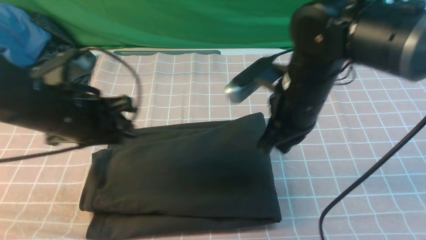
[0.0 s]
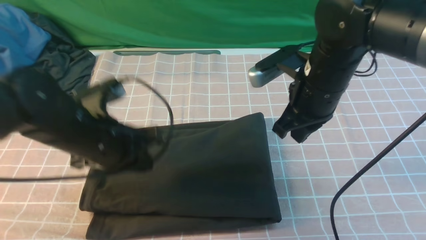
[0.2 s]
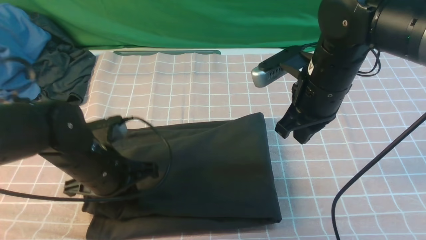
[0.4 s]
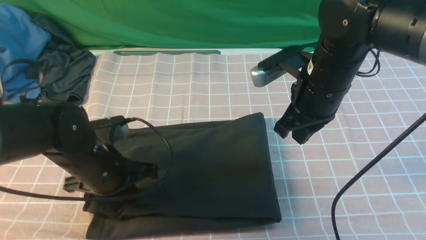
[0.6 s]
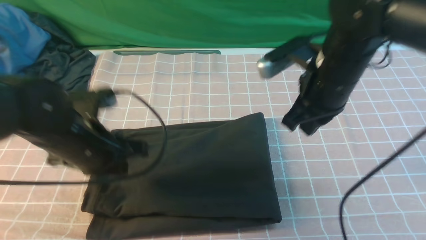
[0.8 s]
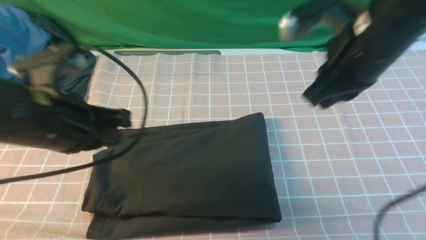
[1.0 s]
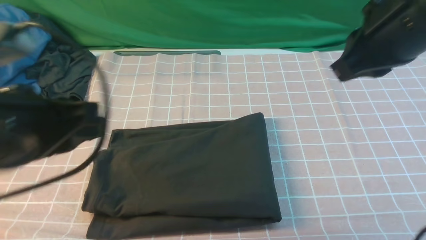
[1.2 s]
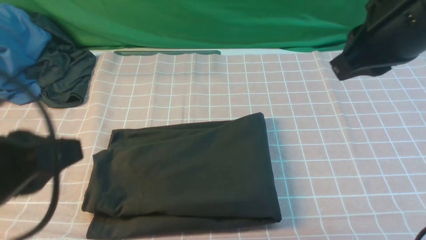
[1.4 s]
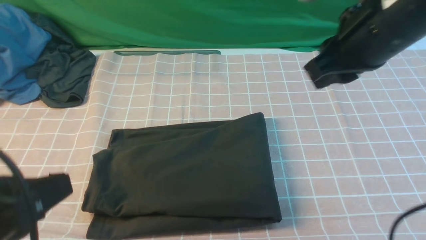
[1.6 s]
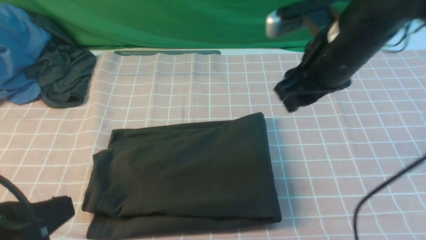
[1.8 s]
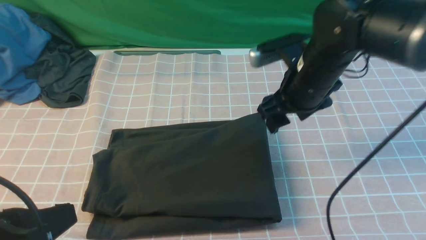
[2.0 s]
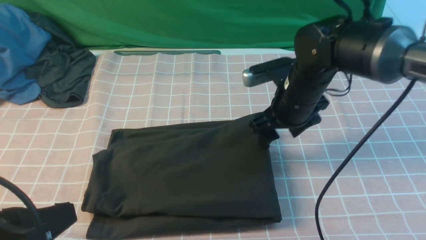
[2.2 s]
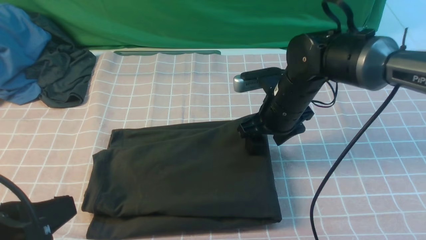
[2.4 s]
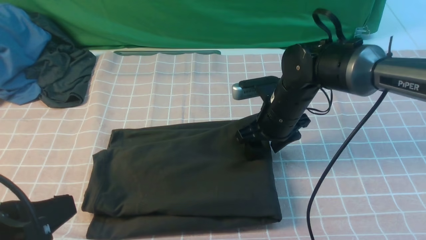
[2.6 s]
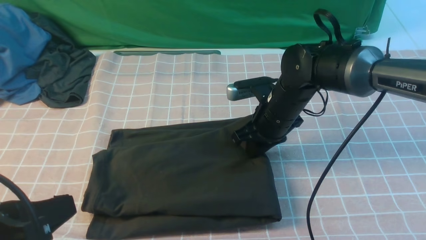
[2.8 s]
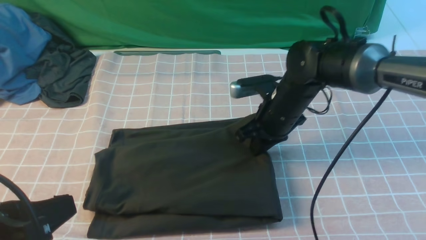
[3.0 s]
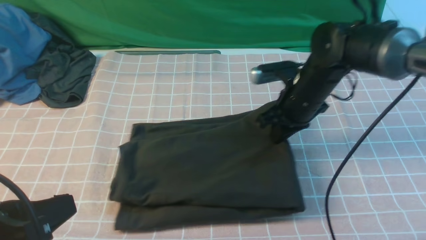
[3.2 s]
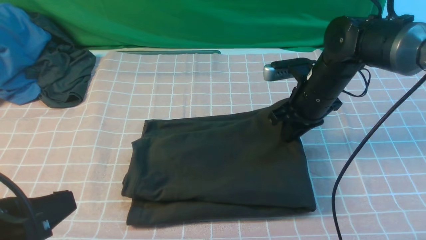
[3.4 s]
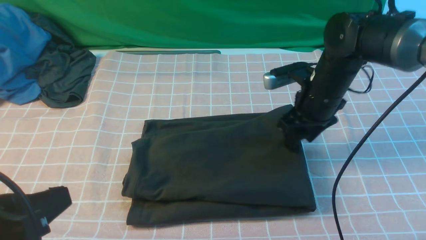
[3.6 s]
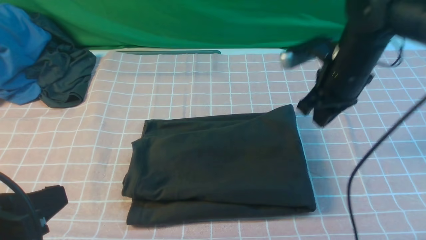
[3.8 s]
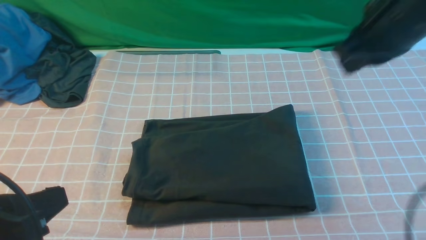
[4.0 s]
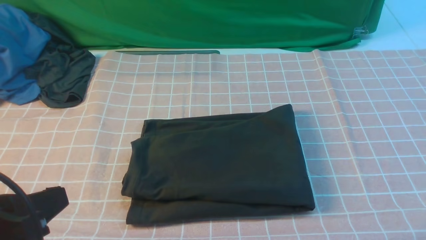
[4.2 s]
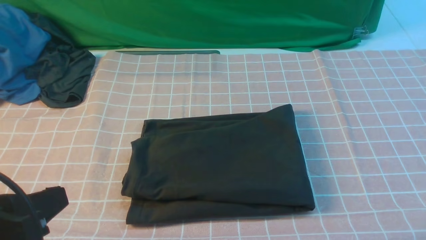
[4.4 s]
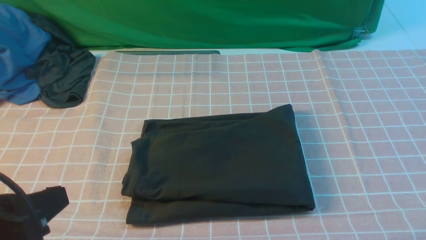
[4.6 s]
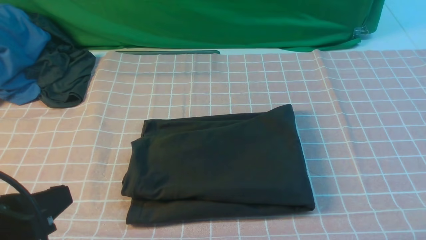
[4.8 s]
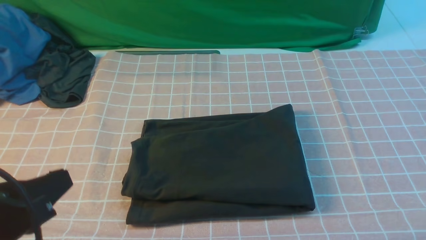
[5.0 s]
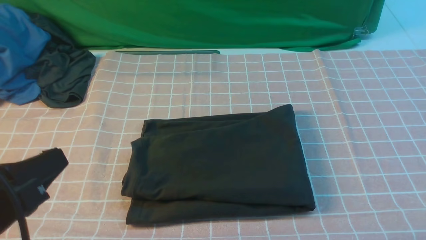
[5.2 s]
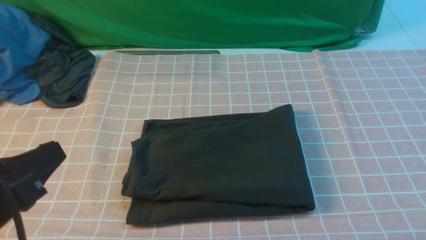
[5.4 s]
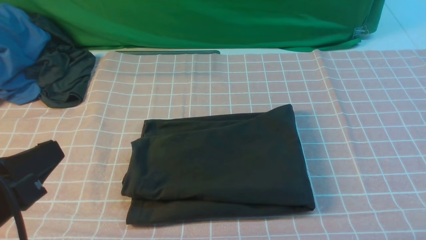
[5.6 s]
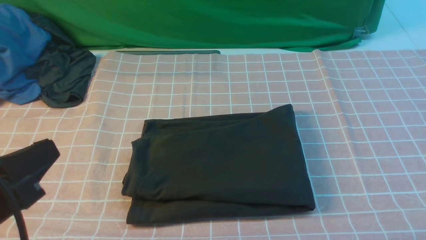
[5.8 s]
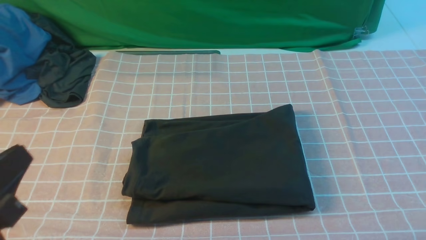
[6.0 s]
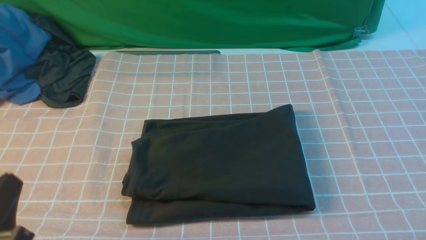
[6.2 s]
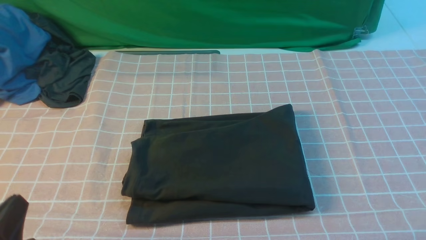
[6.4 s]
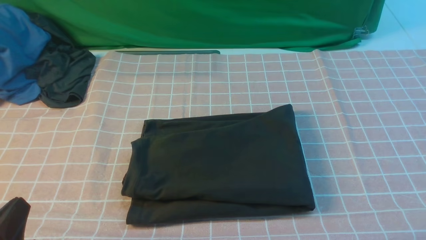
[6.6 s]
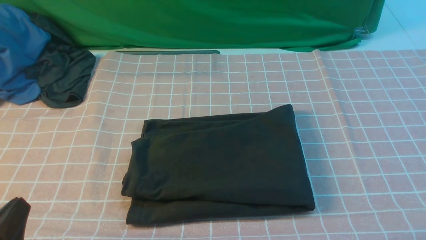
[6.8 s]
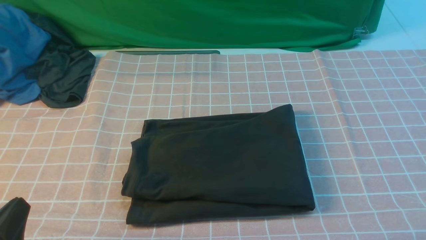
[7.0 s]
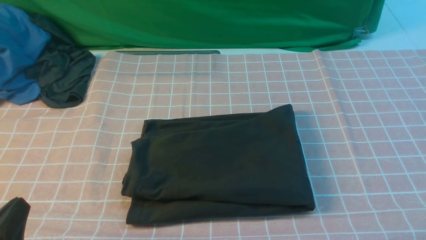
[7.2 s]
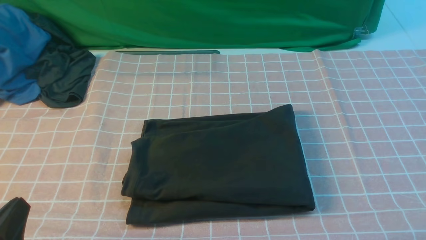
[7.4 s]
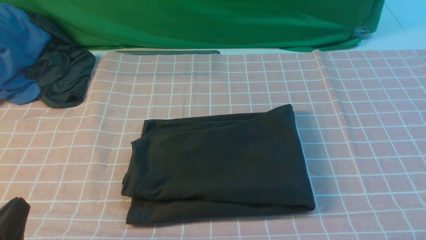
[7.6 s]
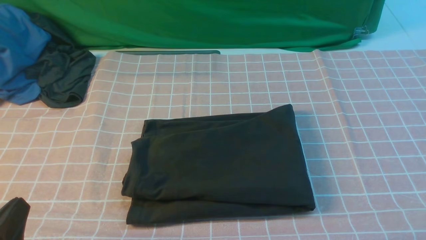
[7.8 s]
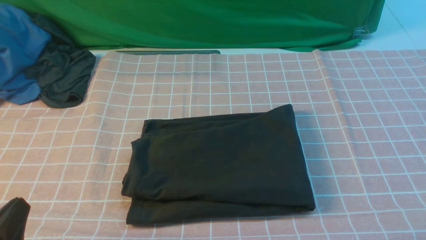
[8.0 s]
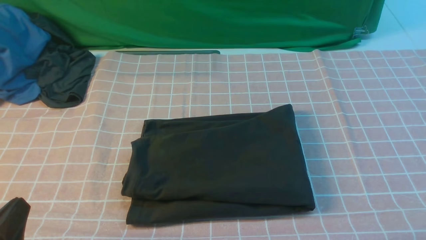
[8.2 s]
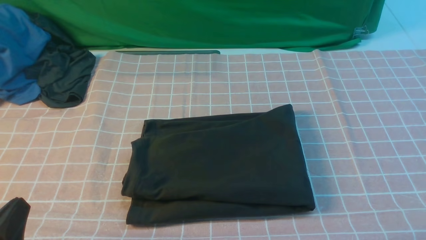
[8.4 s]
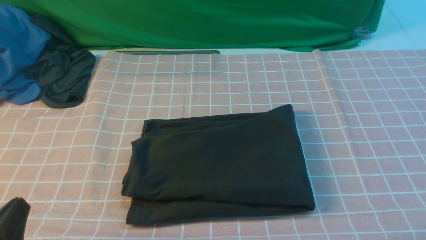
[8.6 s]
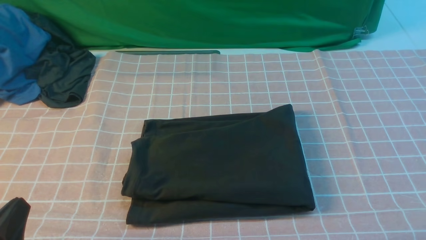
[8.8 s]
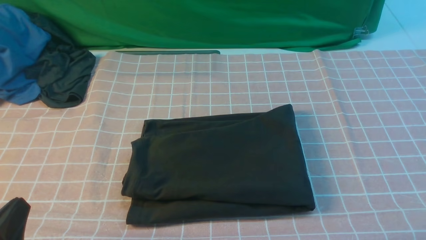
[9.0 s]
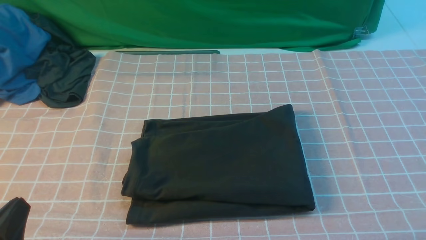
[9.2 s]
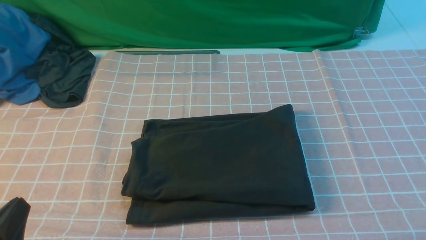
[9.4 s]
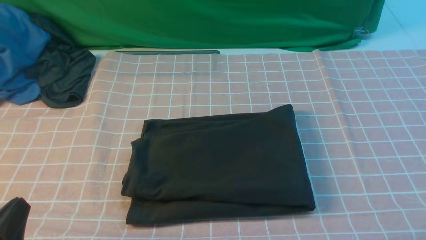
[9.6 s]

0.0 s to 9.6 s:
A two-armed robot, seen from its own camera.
0.0 to 1.6 s: The right gripper heads upward and to the right, covering roughly 10 cm, and opens, while the left gripper heads backward and upward, covering roughly 20 cm, and closes its fingers.
1.6 to 3.2 s: The right gripper moves downward and forward, about 20 cm, and opens, then closes again.
3.2 to 4.8 s: The right gripper goes approximately 50 cm backward, upward and to the right.
4.8 to 6.4 s: The left gripper travels downward by about 10 cm.
8.0 to 9.6 s: Both grippers stay about where they are.
